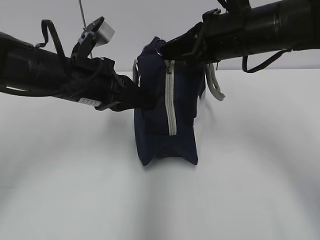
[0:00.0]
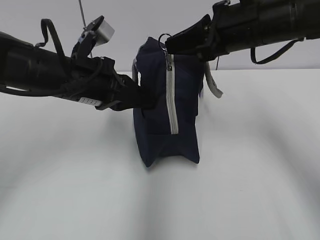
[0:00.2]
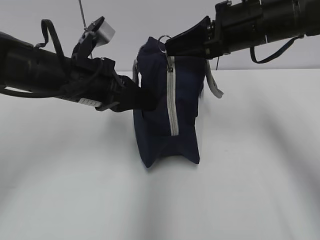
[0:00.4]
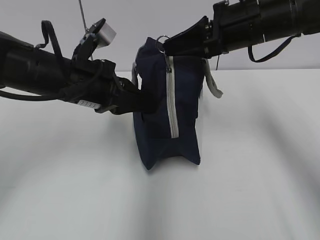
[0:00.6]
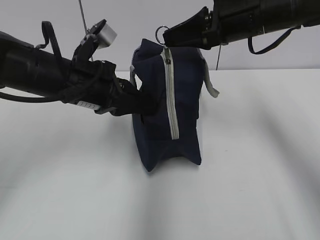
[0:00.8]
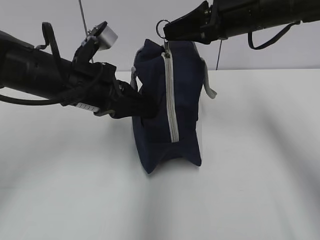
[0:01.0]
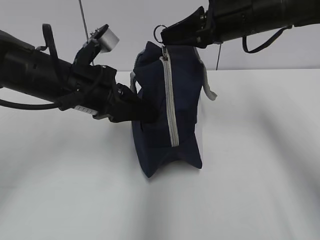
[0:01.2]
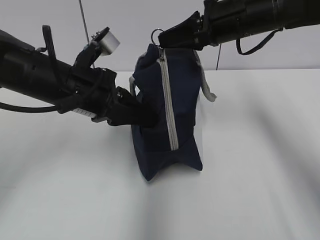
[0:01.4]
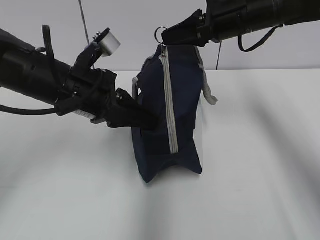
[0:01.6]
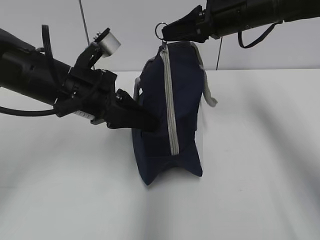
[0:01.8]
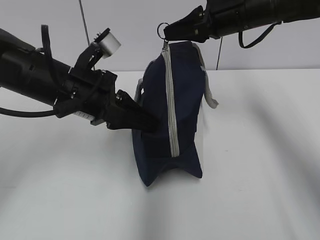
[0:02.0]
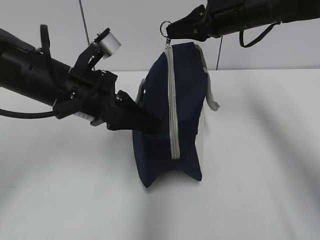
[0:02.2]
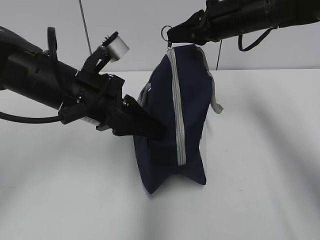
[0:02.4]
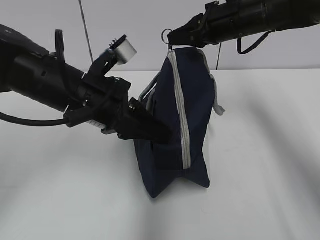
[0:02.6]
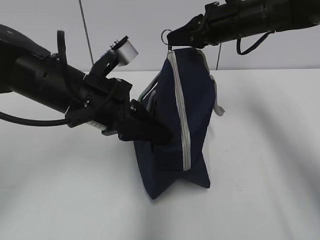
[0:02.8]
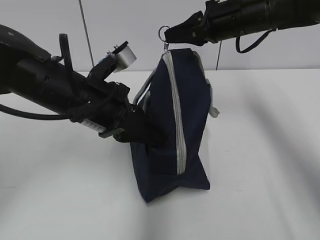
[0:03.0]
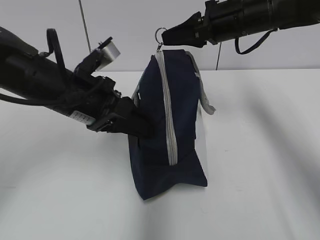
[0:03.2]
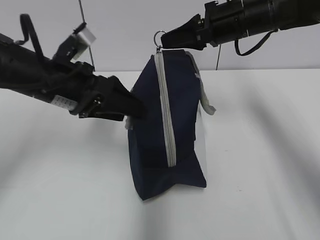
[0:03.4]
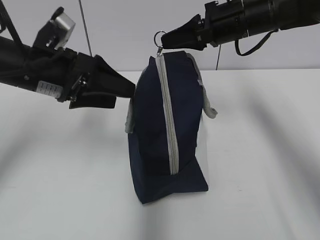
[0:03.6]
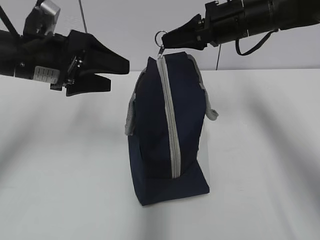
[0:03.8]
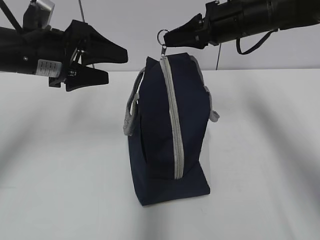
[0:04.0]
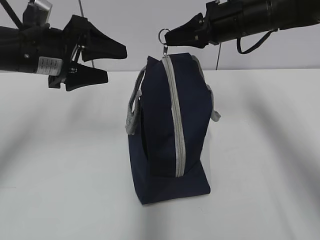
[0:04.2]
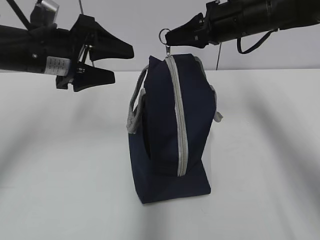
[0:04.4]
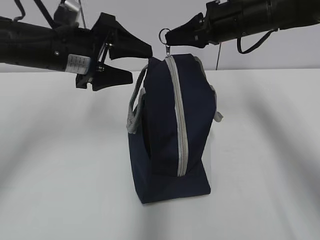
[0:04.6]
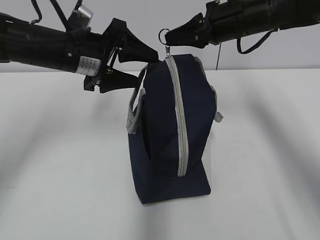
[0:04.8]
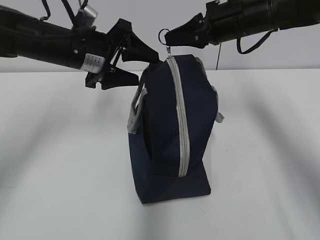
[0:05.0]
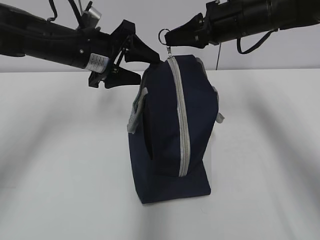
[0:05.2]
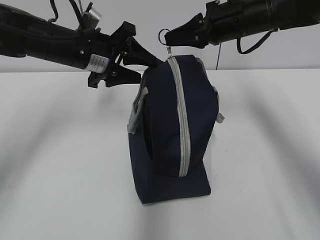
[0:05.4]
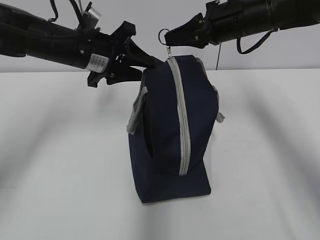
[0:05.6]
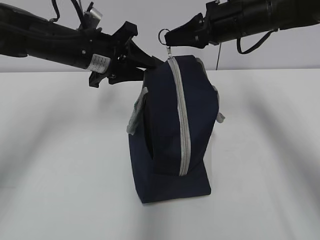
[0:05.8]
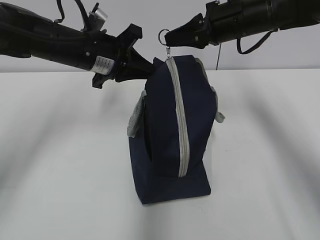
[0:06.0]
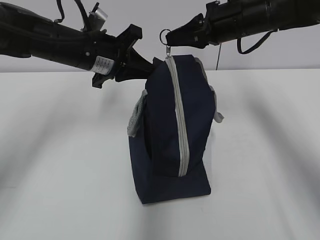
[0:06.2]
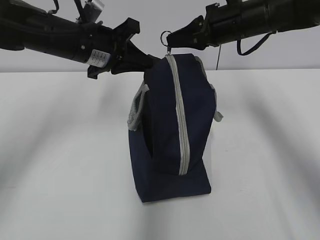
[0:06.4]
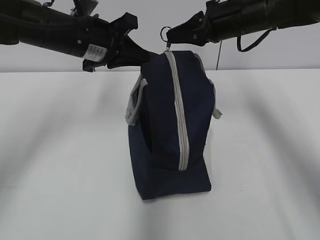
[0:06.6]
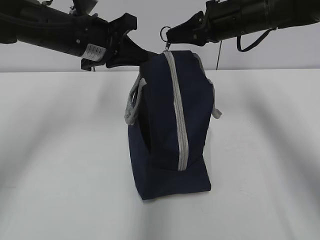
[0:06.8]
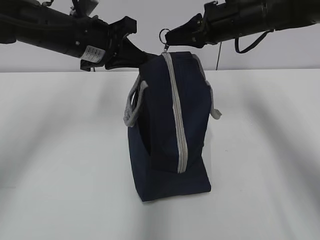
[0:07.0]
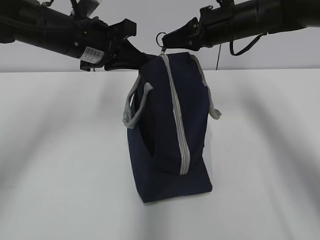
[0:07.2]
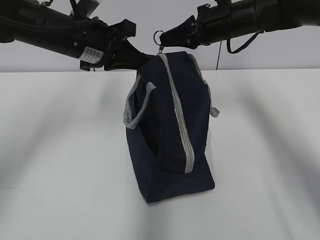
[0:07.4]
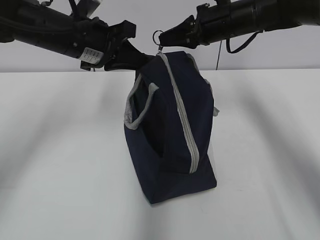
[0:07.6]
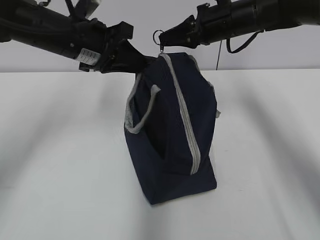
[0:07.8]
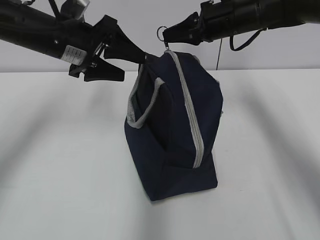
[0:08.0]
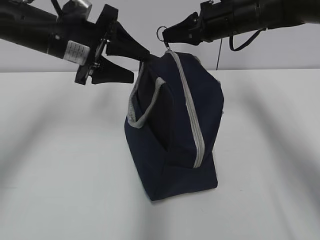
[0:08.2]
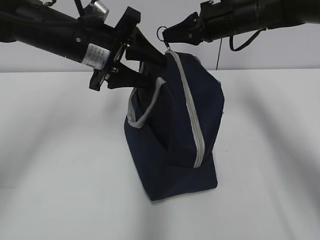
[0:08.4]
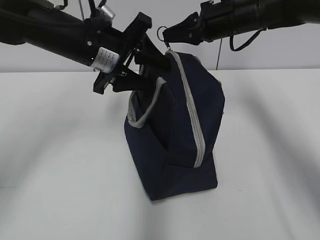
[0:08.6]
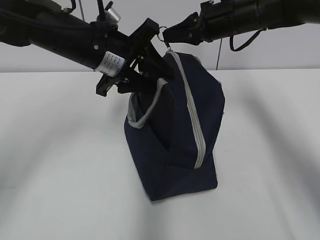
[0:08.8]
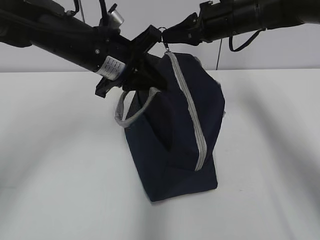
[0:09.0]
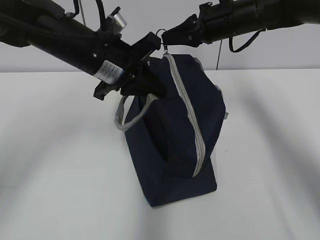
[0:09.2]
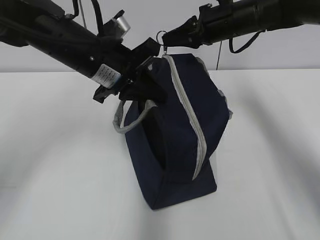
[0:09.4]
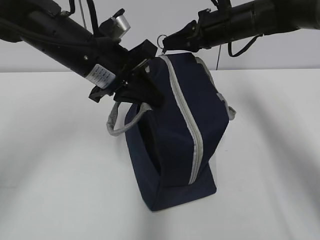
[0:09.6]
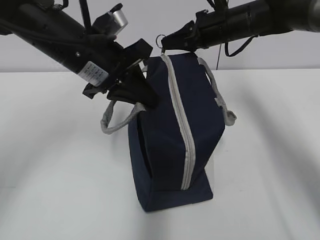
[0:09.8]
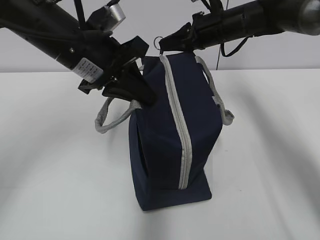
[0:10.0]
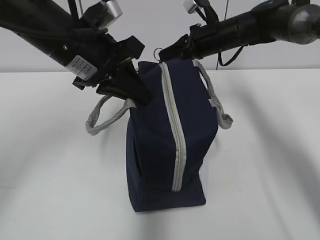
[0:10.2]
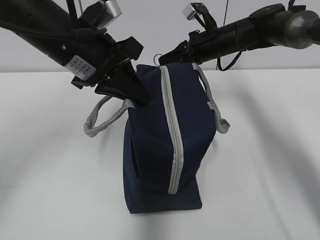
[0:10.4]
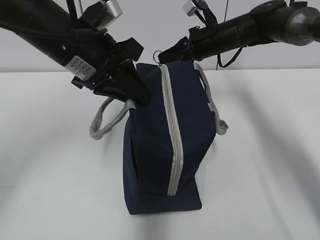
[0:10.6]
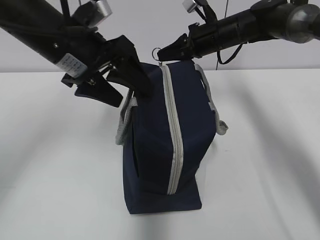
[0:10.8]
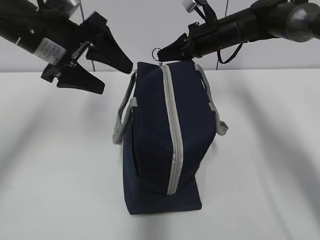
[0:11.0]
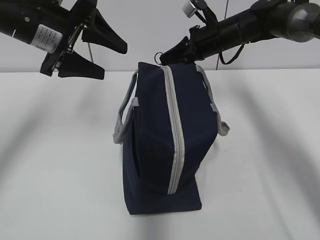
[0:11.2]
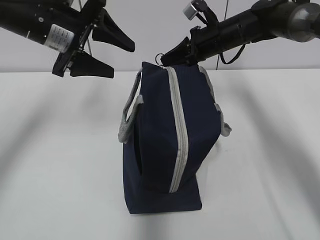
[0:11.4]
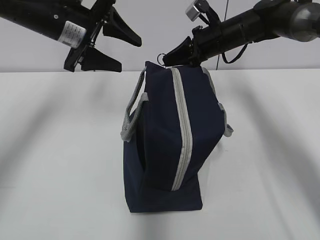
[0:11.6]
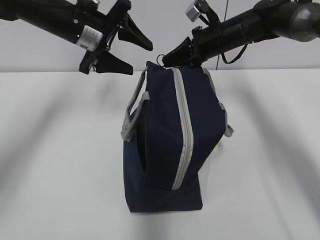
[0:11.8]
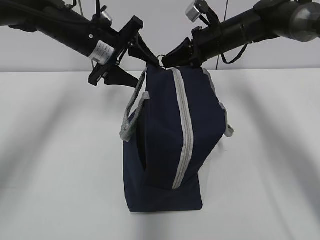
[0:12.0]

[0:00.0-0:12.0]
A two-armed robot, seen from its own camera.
0:00.0 to 0:01.6: The right gripper is displaced forward by some 5 cm.
0:01.6 to 0:03.0: The grippers stay close to where they were, moving slightly.
0:03.0 to 0:04.4: The left gripper shifts some 10 cm to the left and forward, and opens up.
0:04.4 to 0:06.0: The left gripper moves forward and to the right, some 10 cm, and closes.
0:06.0 to 0:07.6: There are only small adjustments of the grippers.
0:07.6 to 0:09.0: The left gripper opens, then closes once more.
0:09.0 to 0:10.4: The left gripper shifts by approximately 5 cm; the right gripper heads downward, covering some 5 cm.
0:10.4 to 0:12.0: The left gripper shifts roughly 10 cm forward, and opens.

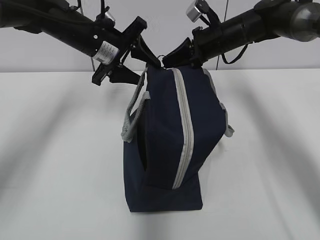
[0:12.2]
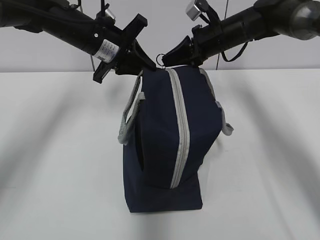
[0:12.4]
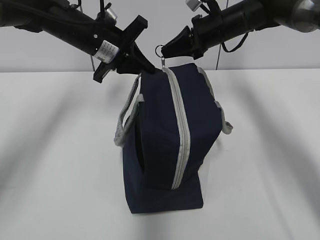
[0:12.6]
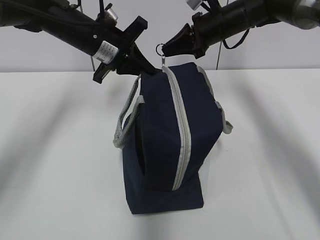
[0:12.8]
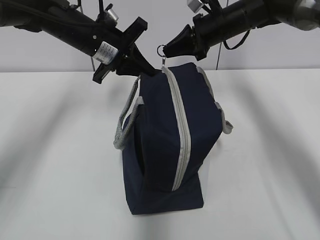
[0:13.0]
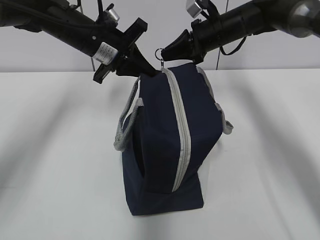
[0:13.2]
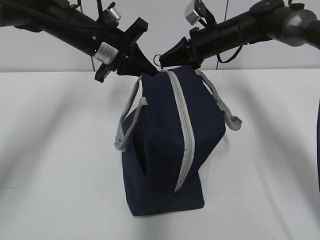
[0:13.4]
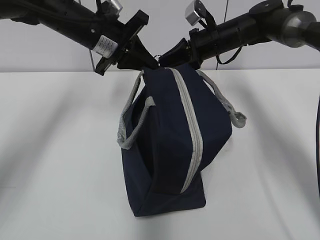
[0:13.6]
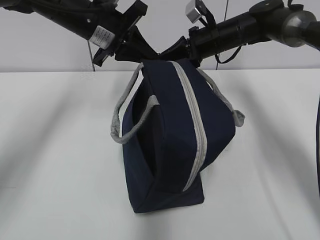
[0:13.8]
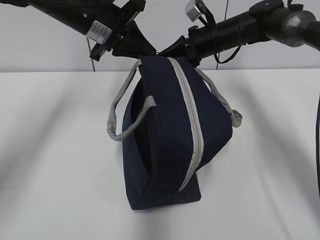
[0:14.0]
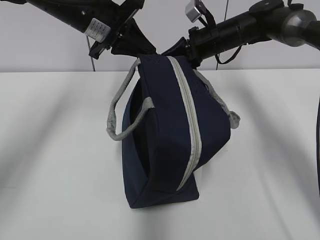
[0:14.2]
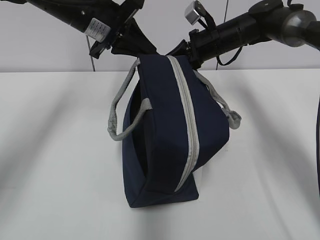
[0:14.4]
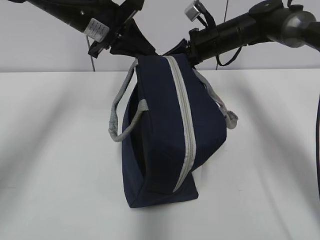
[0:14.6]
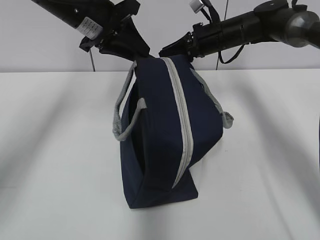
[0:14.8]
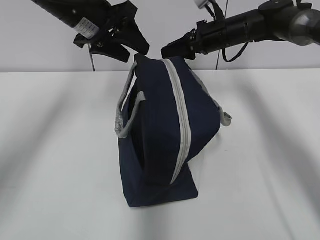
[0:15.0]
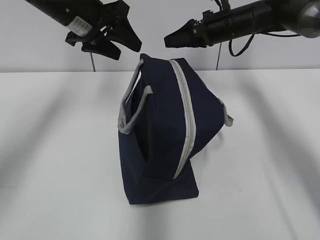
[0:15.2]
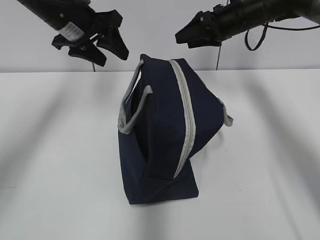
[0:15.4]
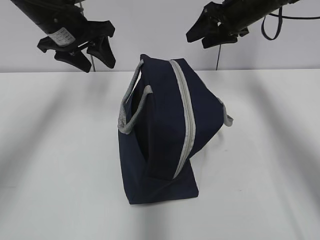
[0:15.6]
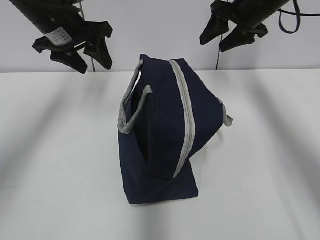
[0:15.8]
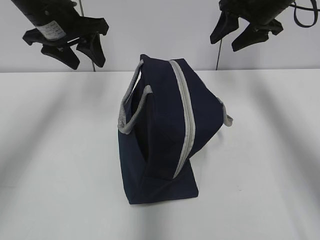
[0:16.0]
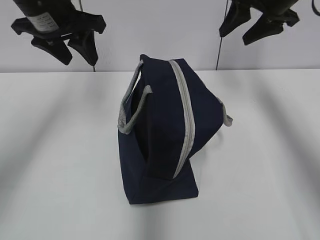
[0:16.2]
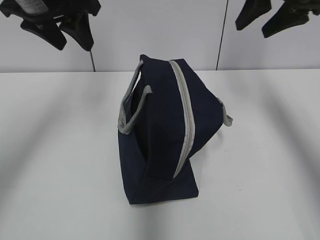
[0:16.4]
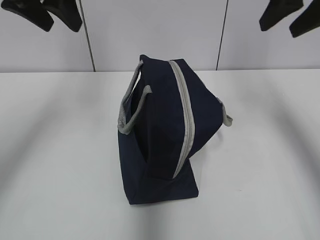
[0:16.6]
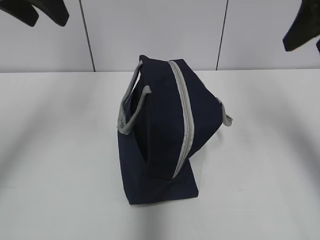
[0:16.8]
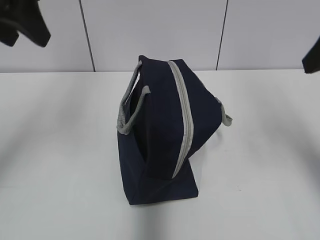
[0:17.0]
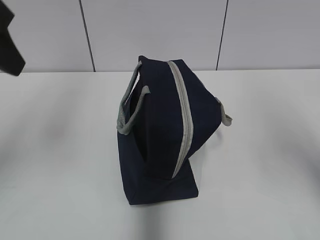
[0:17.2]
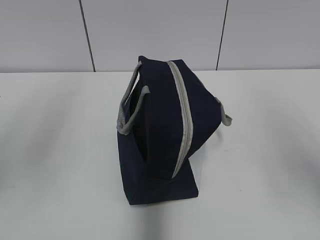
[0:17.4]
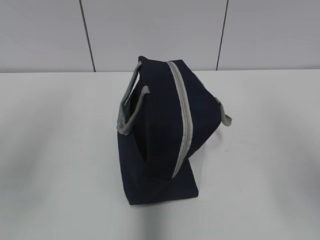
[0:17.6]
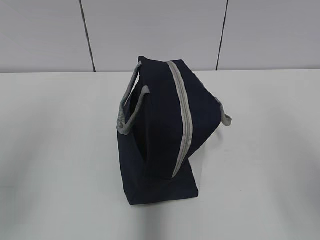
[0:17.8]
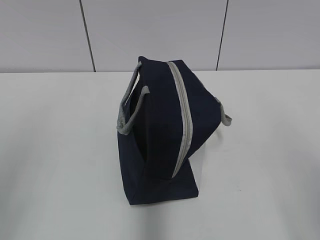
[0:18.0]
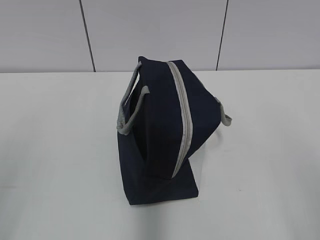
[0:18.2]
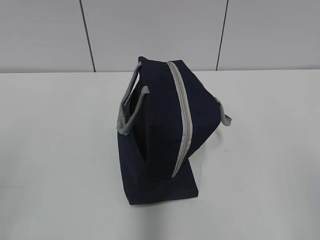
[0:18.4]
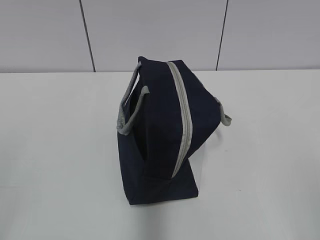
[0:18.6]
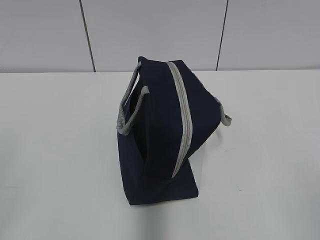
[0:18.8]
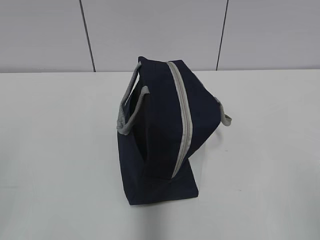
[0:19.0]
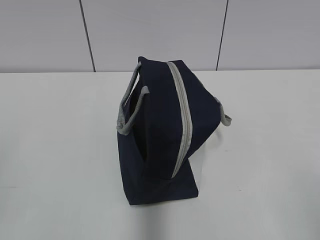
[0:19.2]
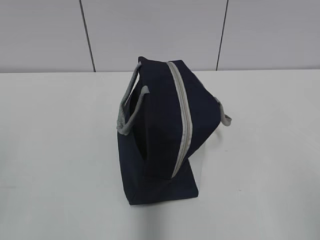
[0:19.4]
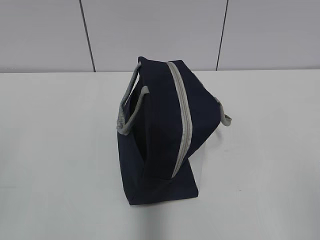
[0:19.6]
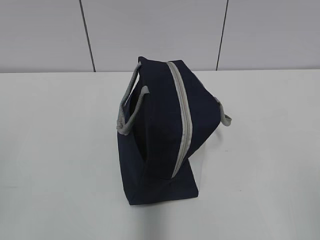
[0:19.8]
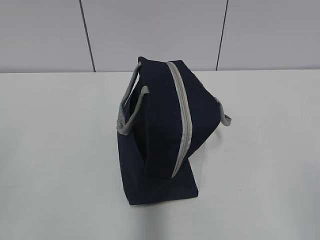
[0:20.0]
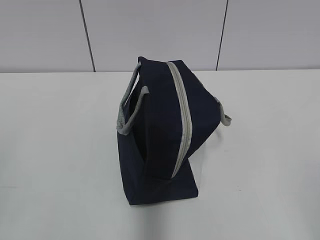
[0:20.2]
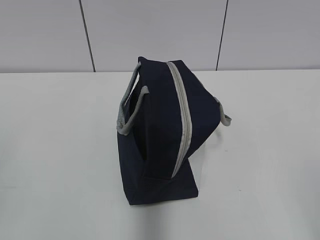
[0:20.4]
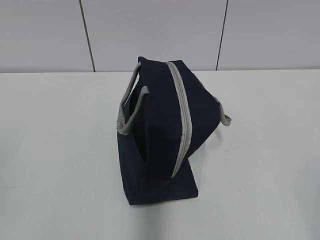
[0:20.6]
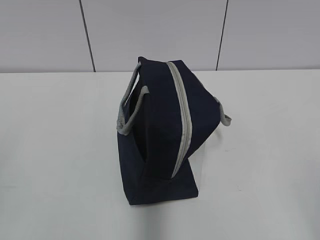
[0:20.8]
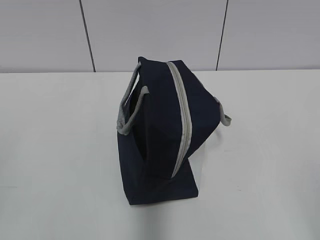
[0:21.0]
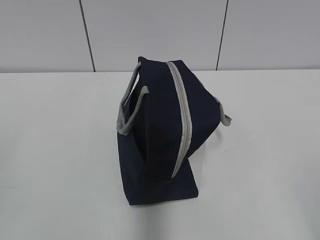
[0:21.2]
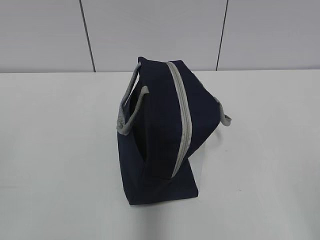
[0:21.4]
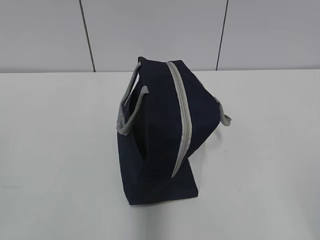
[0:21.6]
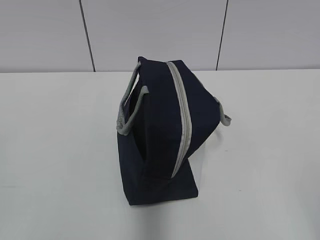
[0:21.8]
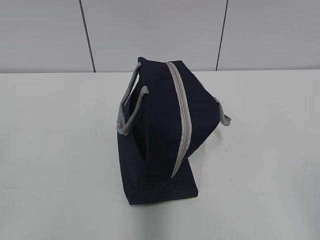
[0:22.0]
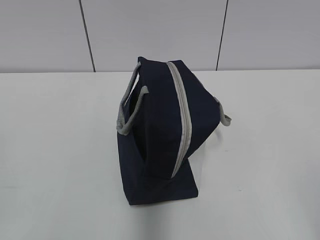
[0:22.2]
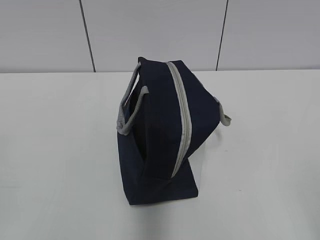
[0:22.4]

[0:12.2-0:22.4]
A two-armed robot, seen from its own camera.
Step, 0:12.2 to 0:14.6: Pull the zipper with your right hand.
0:12.2 to 0:13.6: The left gripper closes its fingers.
0:13.6 to 0:15.2: The right gripper opens; the left gripper changes place by approximately 5 cm, and opens up.
0:15.2 to 0:16.6: The left gripper moves upward and backward, some 10 cm, while the right gripper moves backward and upward, about 25 cm.
0:16.6 to 0:18.0: Both grippers travel together backward, approximately 25 cm.
